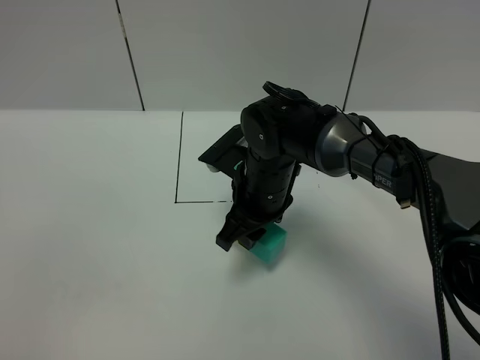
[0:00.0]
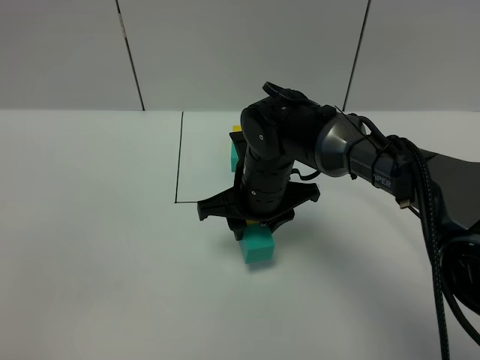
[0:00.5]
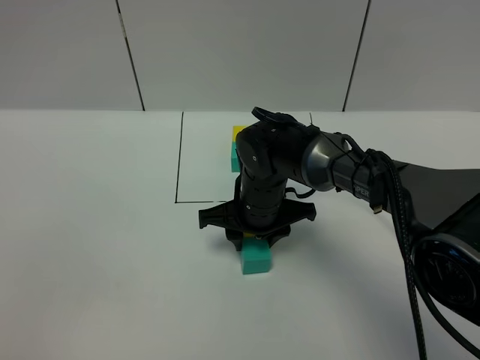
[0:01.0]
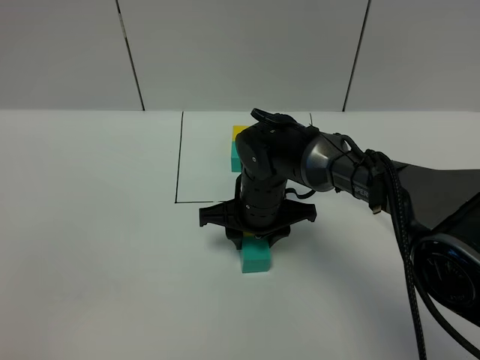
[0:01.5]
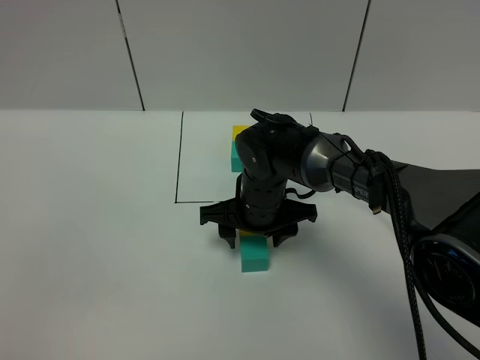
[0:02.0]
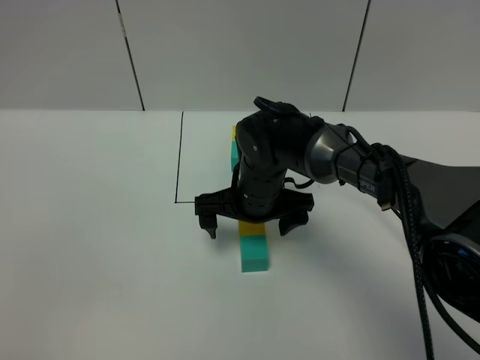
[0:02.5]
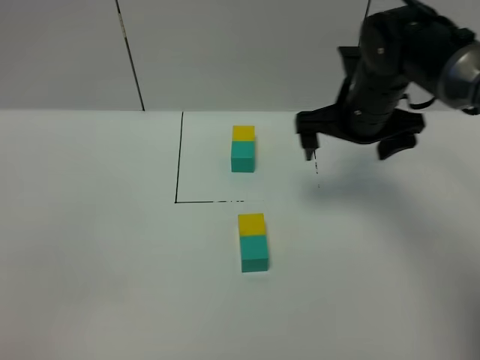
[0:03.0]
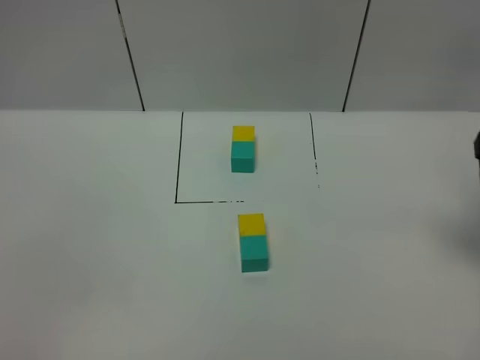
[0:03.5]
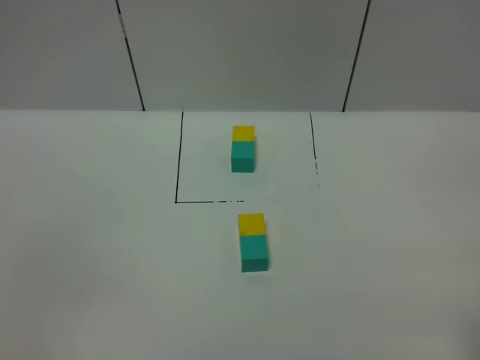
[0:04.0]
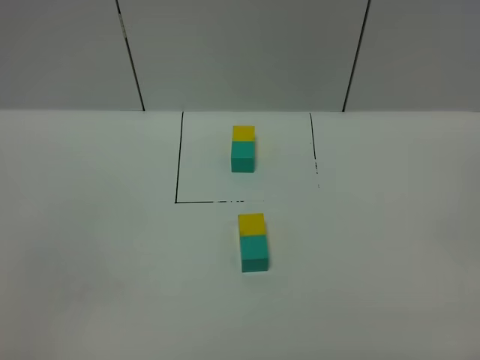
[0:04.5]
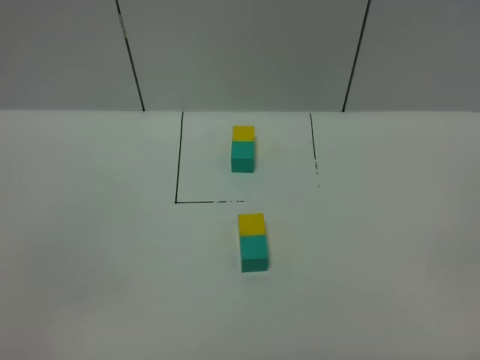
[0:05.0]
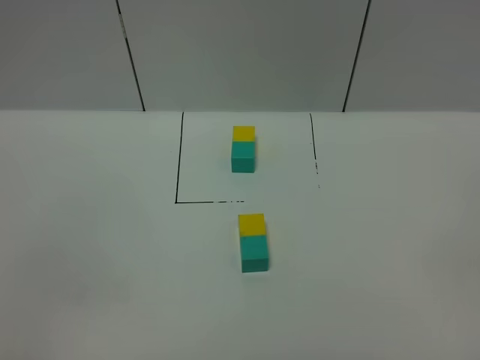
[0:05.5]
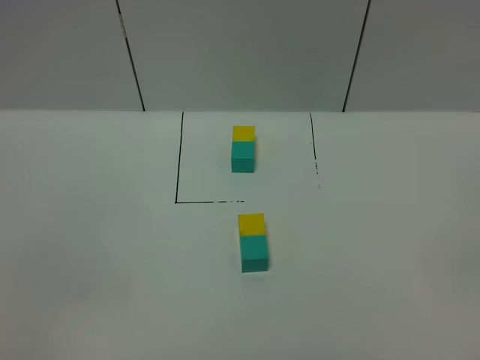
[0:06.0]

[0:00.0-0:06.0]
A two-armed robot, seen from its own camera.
Task of the whole recording: According to the building block template in front, assemble the scattered blocks together.
Step, 0:00.0 to 0:02.0: Adjust the pose of the building blocks.
0:00.0 to 0:02.0: The right gripper opens.
0:02.0 to 0:04.0: The right gripper travels to the right, backward and upward by approximately 40 cm, and opens.
